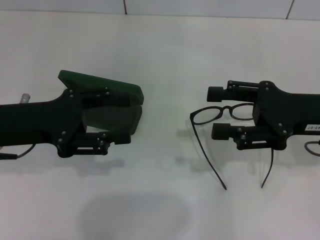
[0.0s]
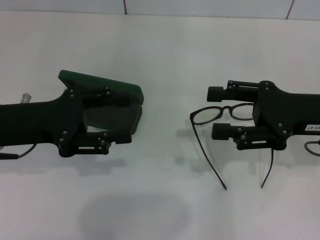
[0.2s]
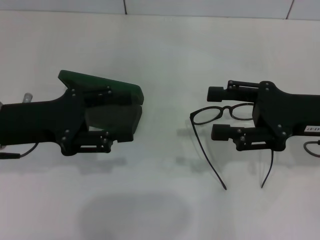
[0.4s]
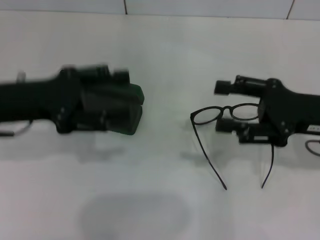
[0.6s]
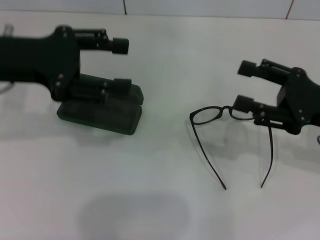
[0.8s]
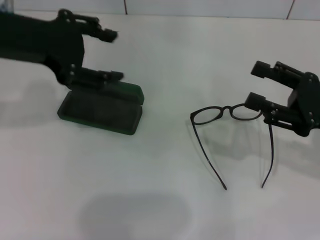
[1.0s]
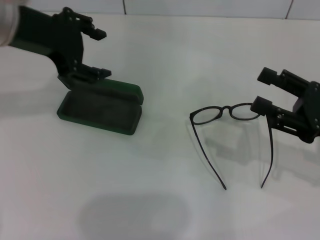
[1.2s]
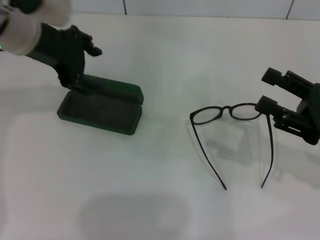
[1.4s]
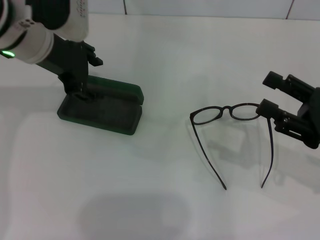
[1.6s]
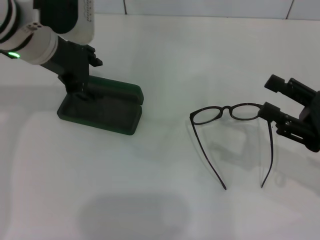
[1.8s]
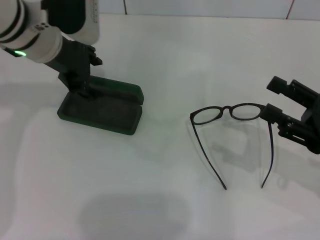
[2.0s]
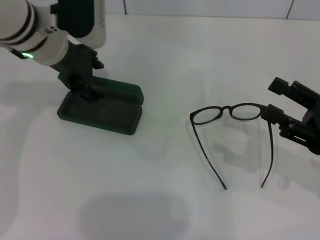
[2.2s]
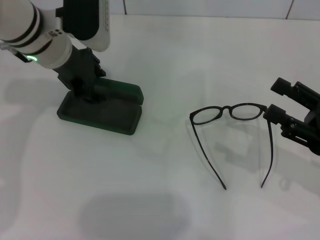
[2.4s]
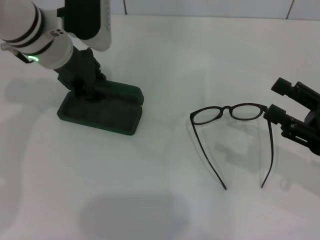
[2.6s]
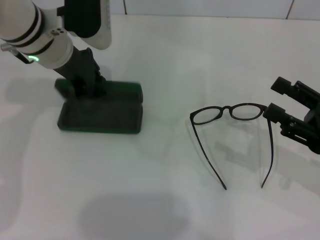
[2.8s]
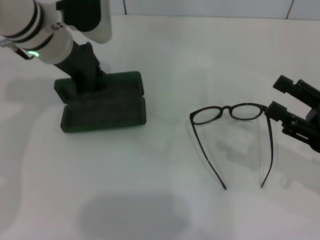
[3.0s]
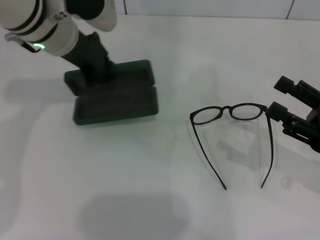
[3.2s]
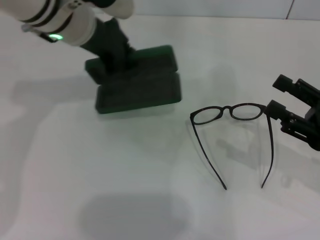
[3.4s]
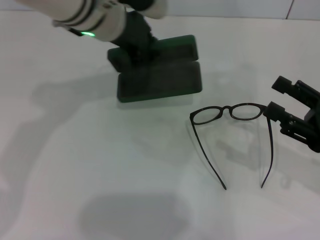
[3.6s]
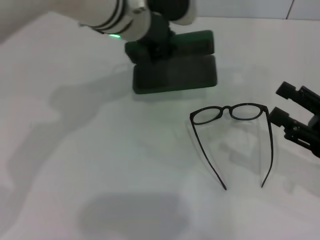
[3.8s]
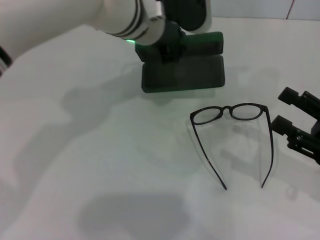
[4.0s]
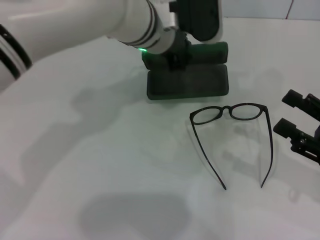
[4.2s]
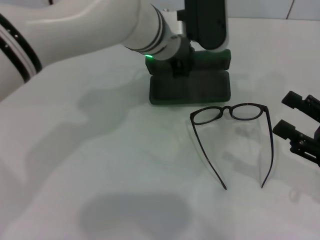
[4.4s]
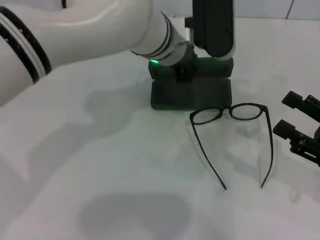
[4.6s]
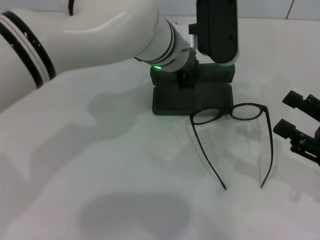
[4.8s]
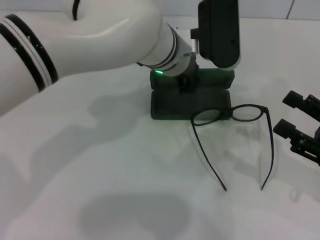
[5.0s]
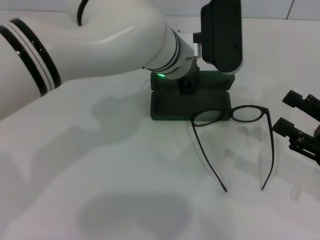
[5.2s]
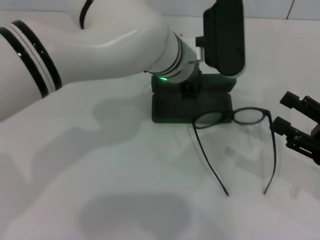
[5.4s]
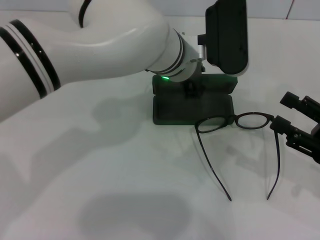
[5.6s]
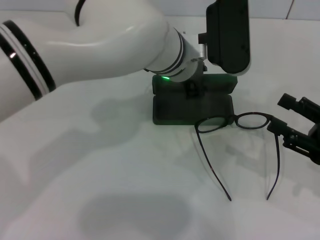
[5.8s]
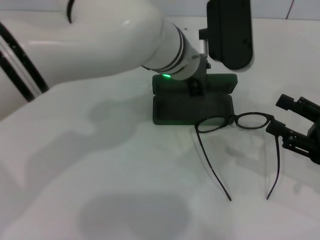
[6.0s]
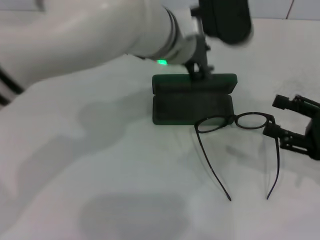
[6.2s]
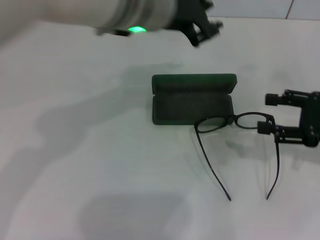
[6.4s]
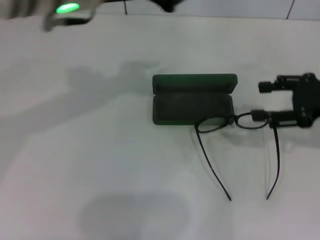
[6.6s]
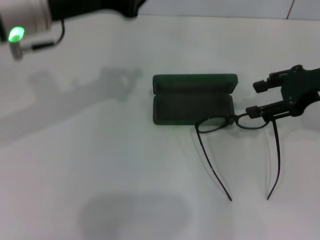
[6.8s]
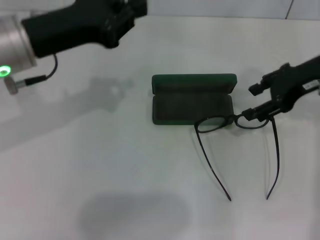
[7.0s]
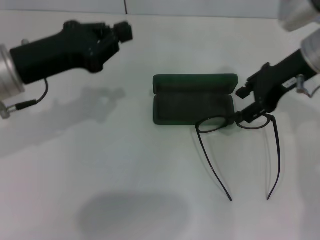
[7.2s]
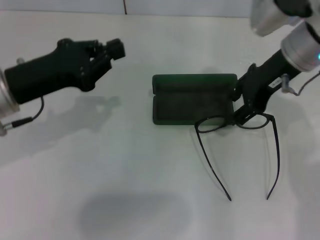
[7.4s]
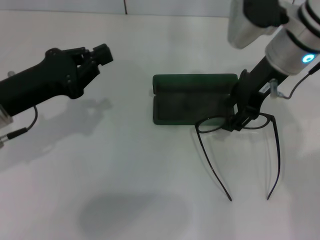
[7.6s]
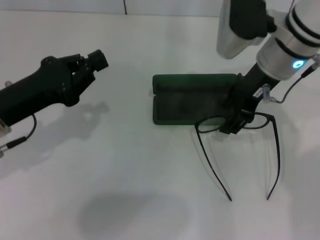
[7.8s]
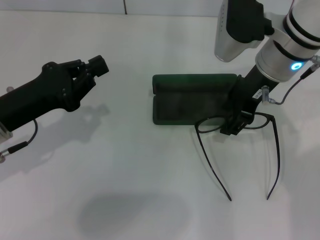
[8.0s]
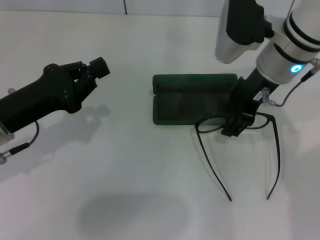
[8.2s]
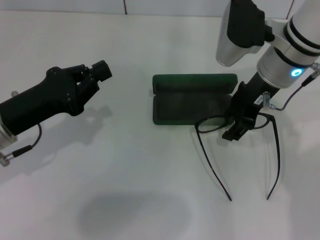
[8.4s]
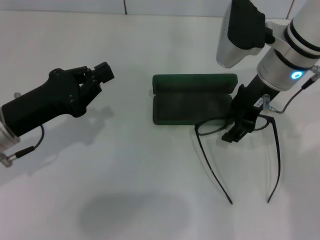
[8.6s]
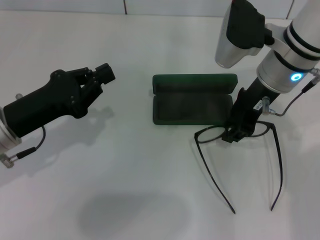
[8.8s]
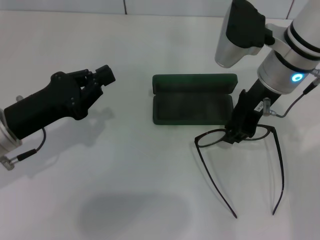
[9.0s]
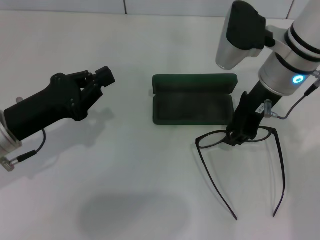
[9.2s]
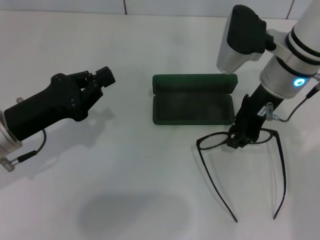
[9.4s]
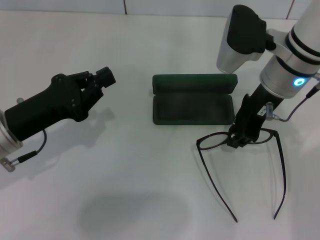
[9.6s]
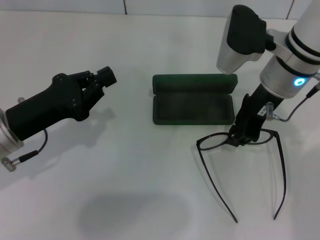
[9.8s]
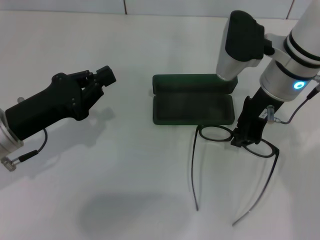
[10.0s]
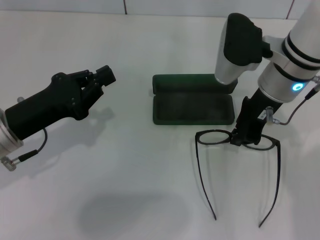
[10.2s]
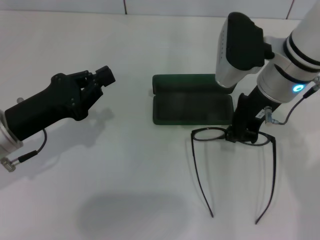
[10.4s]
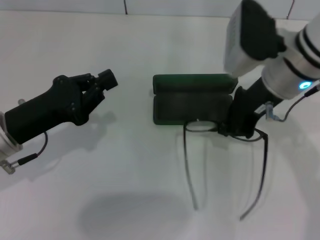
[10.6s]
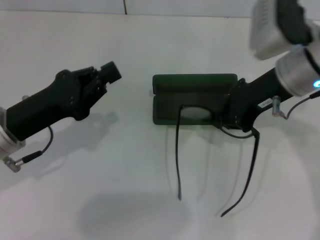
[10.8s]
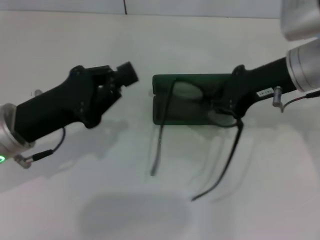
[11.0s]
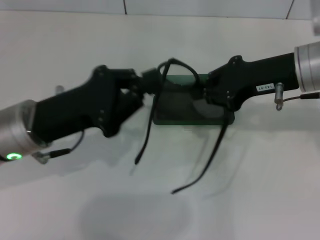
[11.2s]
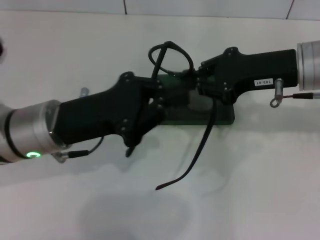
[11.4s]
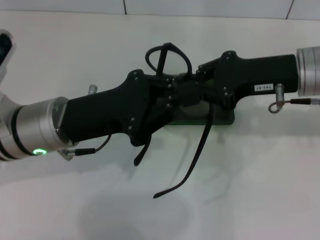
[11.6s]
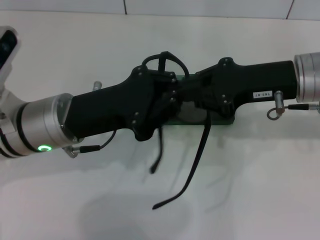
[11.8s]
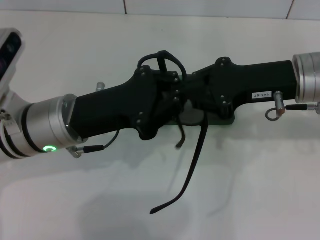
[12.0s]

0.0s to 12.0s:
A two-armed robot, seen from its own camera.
Step, 0.0s to 2.6s: Grab the glasses case with your left hand.
Step, 3.0s to 5.4s: Place the glasses case in the center of the table with your left hand.
Step, 5.8s to 9.8s: Grab the eyeglass frame with your right hand.
0.0s to 1.6s: The left gripper is displaced forward, upward and to the right by approximately 15 cm. Meanwhile the right gripper changes place by some 10 cm.
1.6s to 3.0s: The left gripper closes.
3.0s to 4.4s: The left gripper moves to the right, roughly 15 cm.
6.0s to 7.6s: The left gripper is displaced to the left by some 25 cm, and closes its fingers; the right gripper travels to the left, forward and upward by approximately 25 cm.
7.6s to 9.0s: The right gripper closes up.
9.0s to 10.4s: The right gripper closes.
10.4s to 12.0s: The left gripper travels to the right by about 10 cm. The right gripper moves to the right, approximately 5 cm.

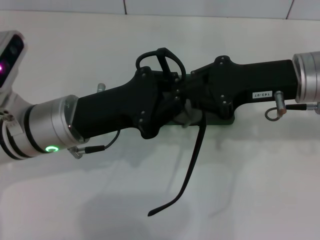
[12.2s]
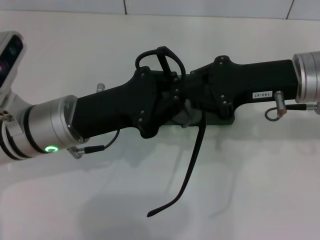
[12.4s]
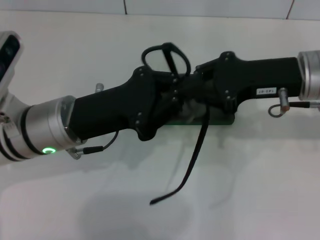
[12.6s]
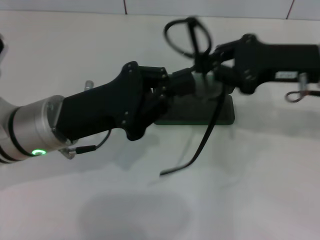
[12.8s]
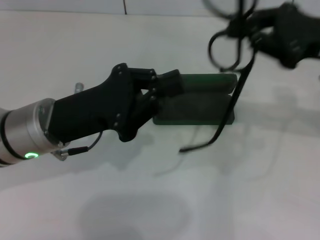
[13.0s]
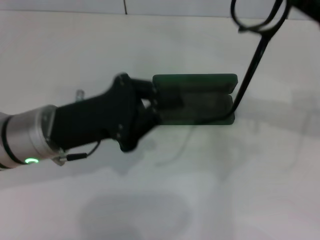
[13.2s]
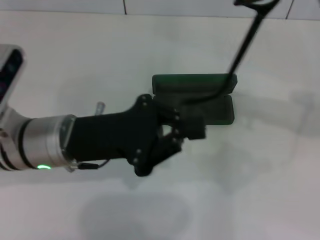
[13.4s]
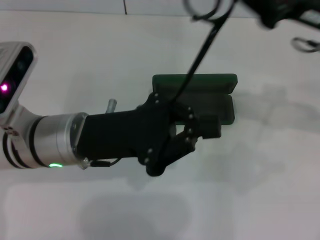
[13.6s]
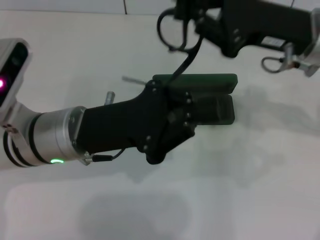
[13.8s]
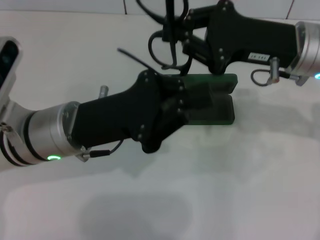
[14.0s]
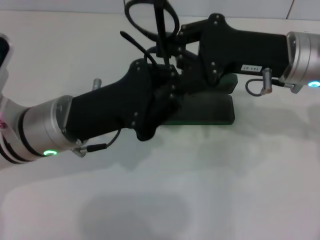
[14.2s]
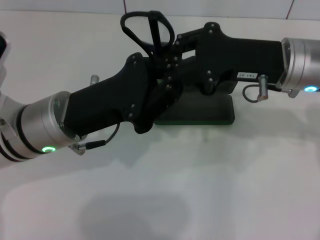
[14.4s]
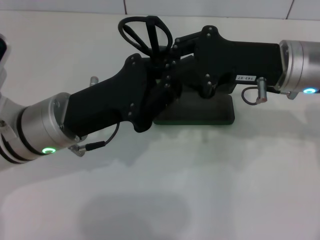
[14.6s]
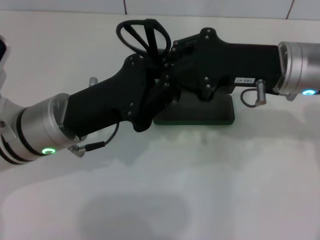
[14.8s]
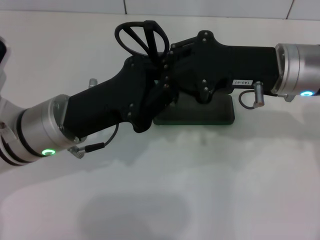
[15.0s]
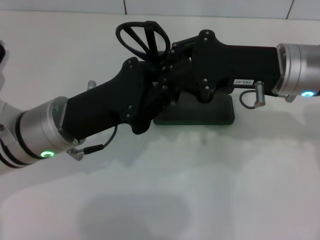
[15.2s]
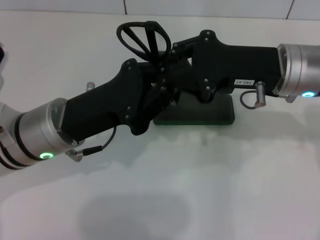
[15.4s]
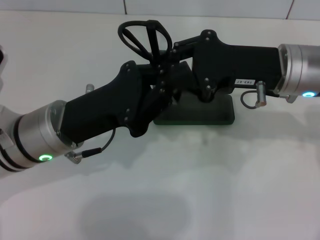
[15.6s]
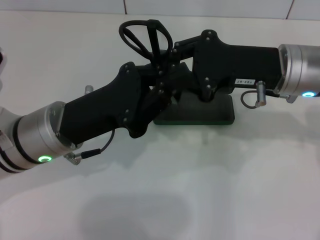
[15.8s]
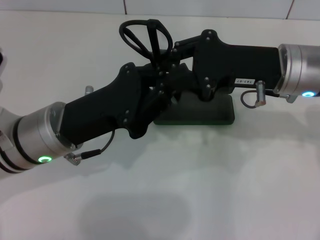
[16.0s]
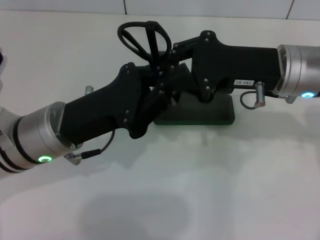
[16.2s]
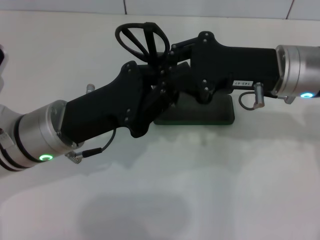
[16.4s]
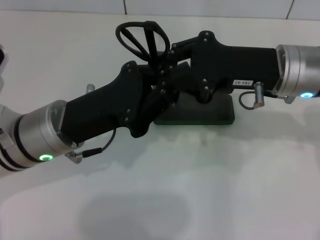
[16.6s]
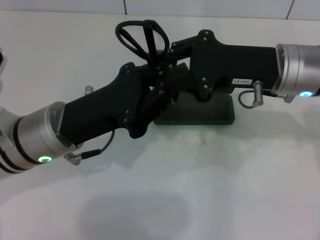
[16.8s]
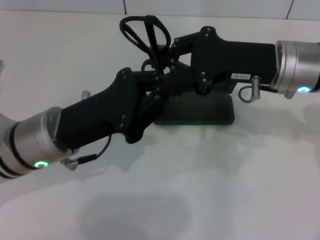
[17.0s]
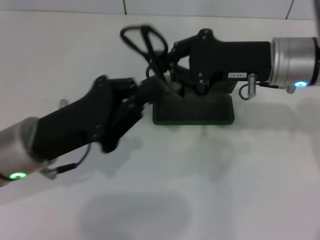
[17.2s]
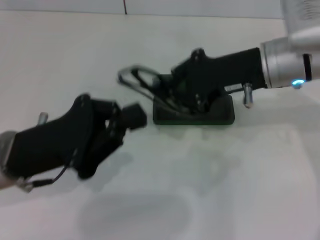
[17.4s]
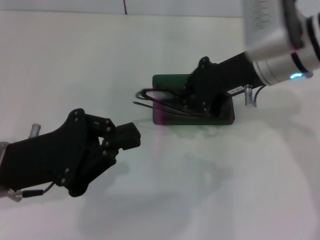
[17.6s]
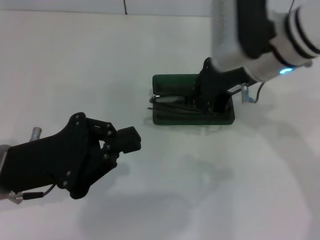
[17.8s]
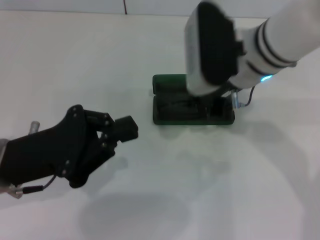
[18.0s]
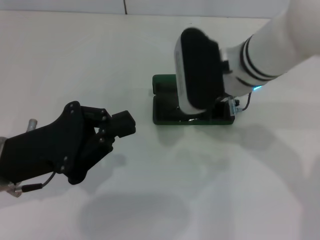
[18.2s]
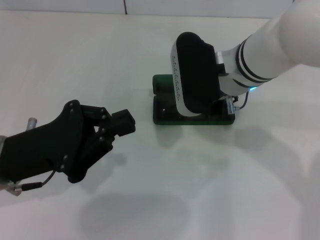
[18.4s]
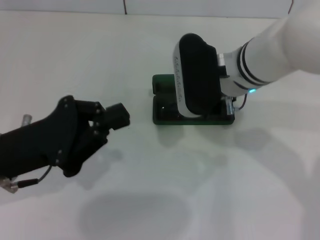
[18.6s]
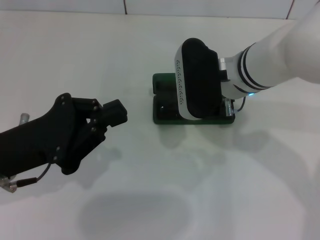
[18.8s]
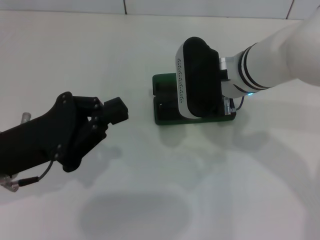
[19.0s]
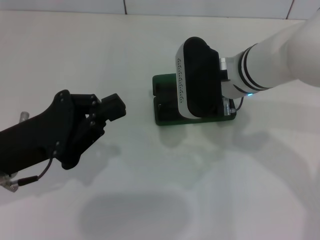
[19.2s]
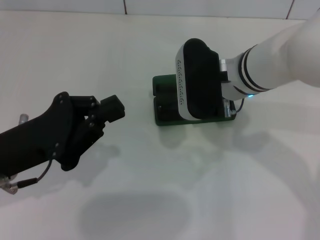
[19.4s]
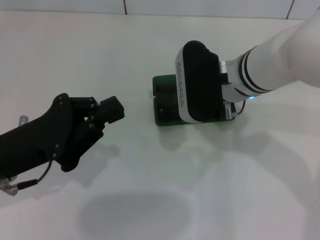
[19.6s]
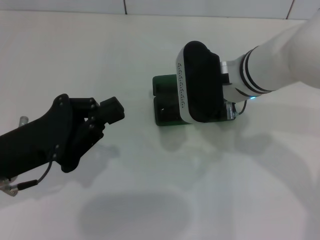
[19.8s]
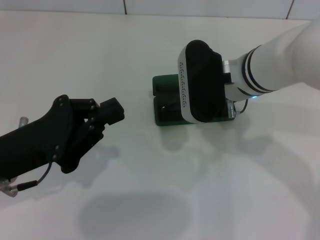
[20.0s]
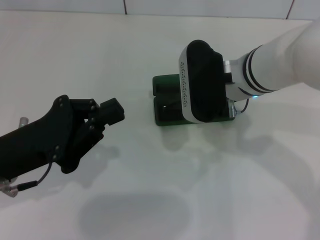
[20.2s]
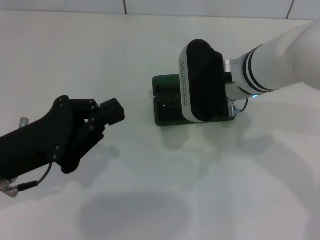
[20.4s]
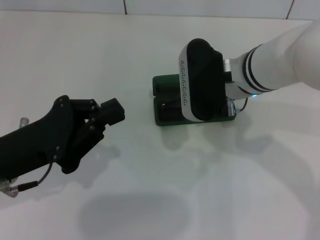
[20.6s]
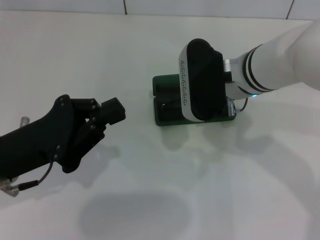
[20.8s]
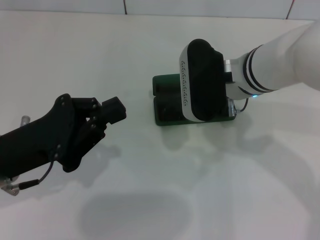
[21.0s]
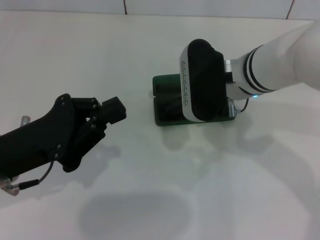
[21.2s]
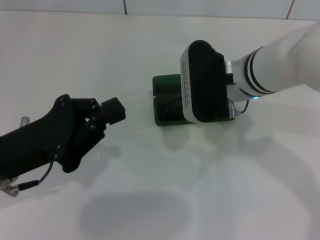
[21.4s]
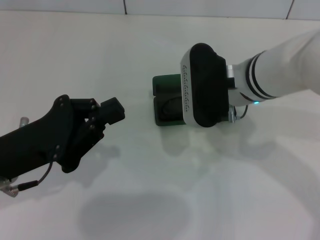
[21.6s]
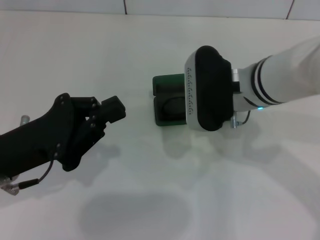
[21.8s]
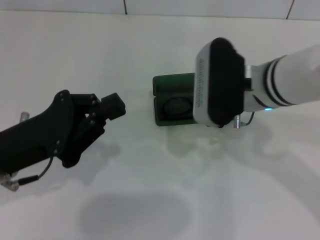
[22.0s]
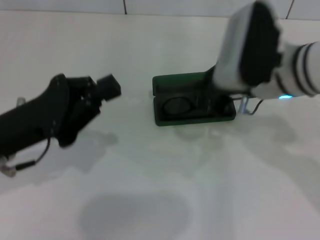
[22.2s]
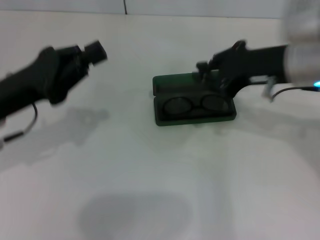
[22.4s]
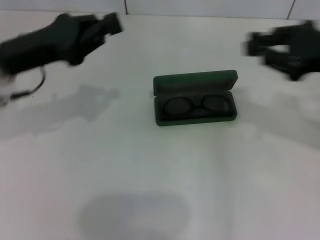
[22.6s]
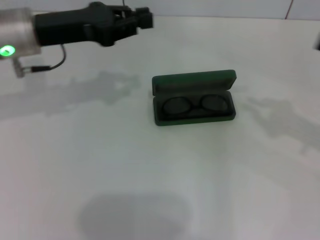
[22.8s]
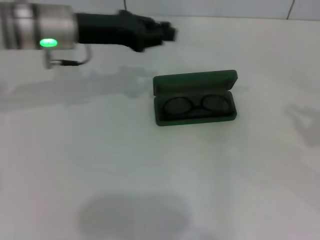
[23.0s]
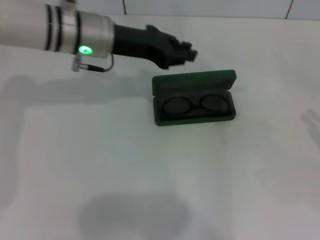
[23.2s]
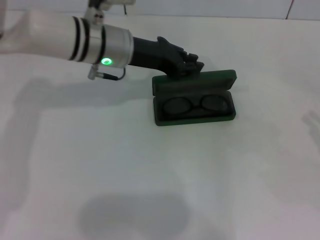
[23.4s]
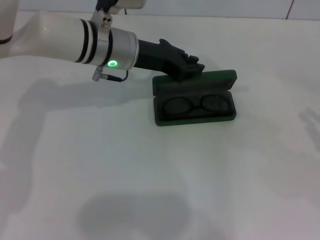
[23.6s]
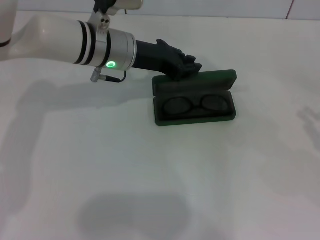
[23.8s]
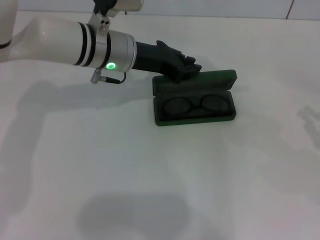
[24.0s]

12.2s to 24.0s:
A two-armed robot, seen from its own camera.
Step, 12.2s to 15.4s: Fold the frame with your left hand.
Step, 15.6s to 21.2s: Put the glasses into the case with your right hand.
12.2s to 13.6s: The right gripper reaches roughly 10 cm to the right, then returns.
13.6s to 15.2s: The right gripper travels to the left by roughly 5 cm.
15.2s to 16.6s: Both grippers stay put.
16.6s to 18.2s: Both grippers move to the left, some 10 cm.
18.2s to 19.6s: The grippers move only a little.
19.6s to 21.0s: Neither gripper changes place.
21.0s to 22.6s: The left gripper travels forward and upward by about 10 cm. Meanwhile the right gripper shifts some 20 cm to the right.
22.6s to 24.0s: The left gripper heads to the right and forward, covering some 15 cm. Meanwhile the right gripper heads to the right, downward and backward, covering roughly 20 cm.
